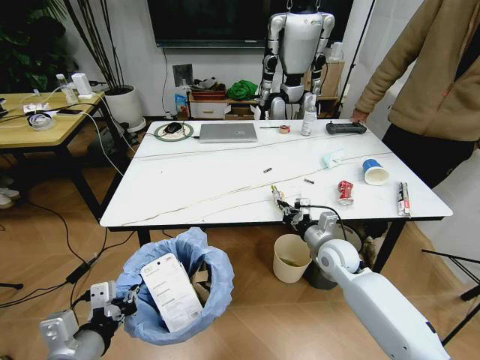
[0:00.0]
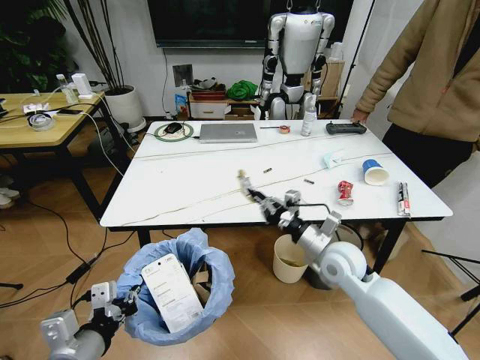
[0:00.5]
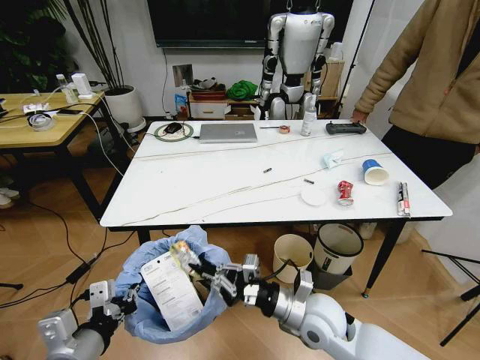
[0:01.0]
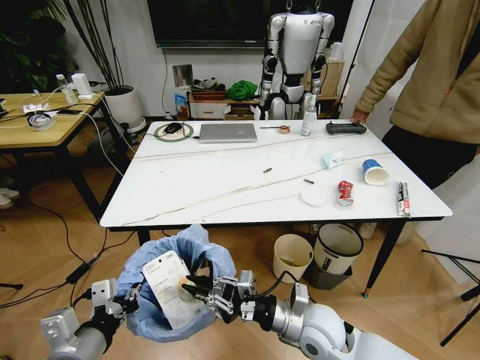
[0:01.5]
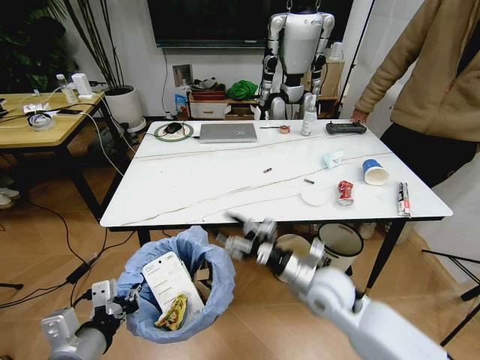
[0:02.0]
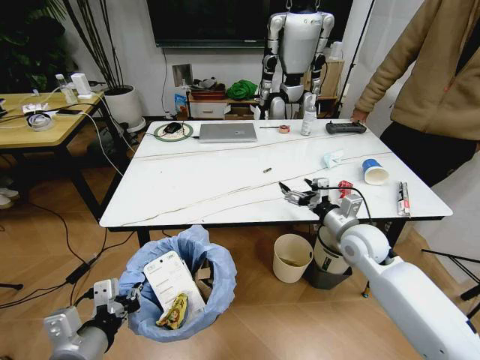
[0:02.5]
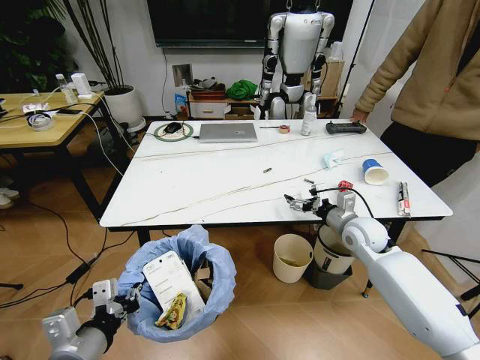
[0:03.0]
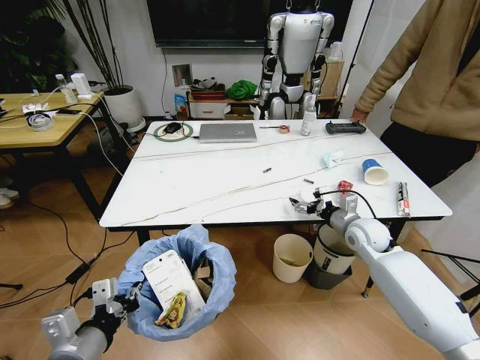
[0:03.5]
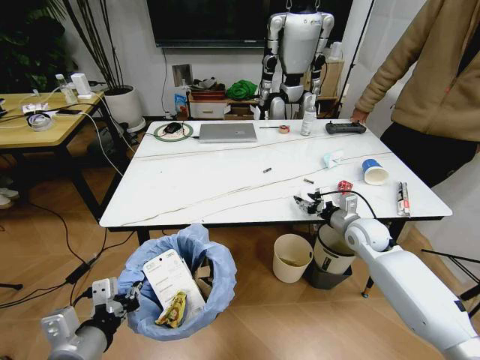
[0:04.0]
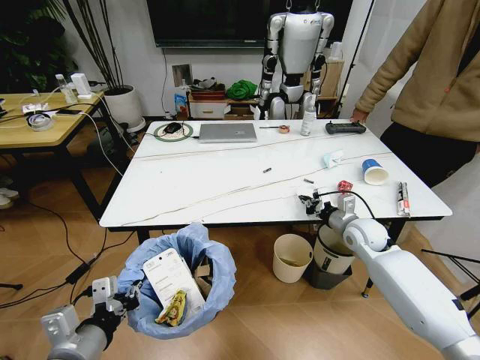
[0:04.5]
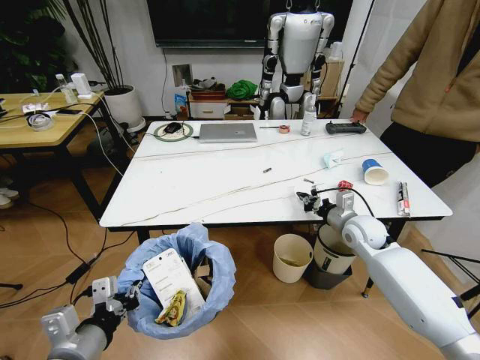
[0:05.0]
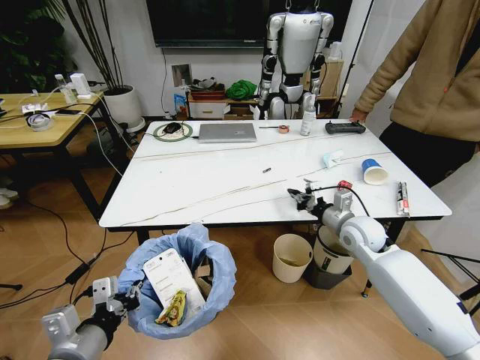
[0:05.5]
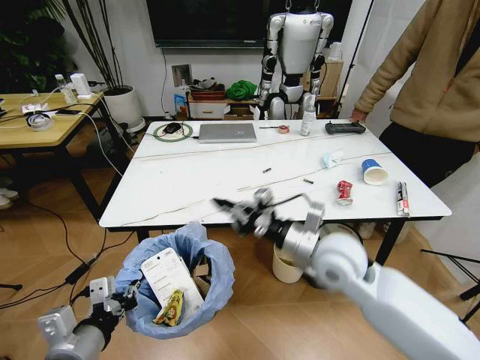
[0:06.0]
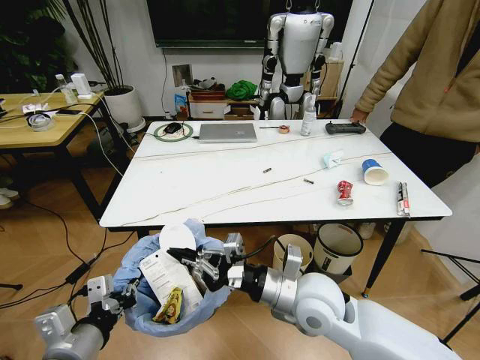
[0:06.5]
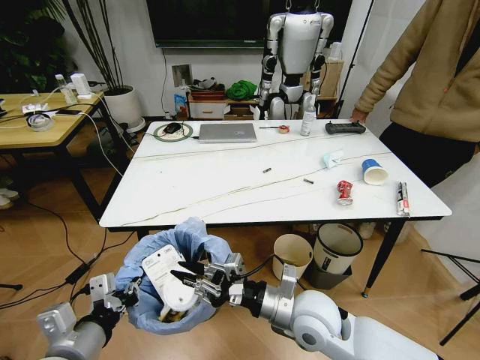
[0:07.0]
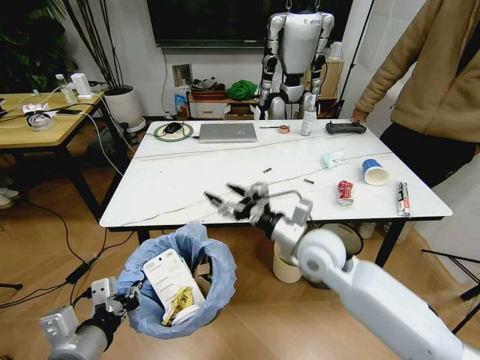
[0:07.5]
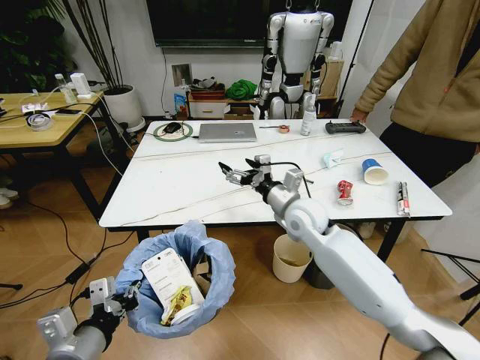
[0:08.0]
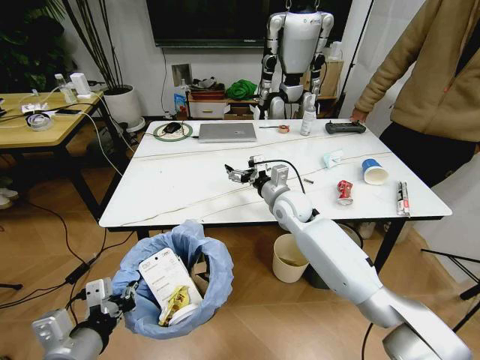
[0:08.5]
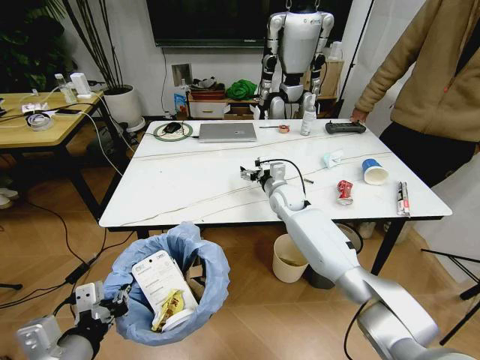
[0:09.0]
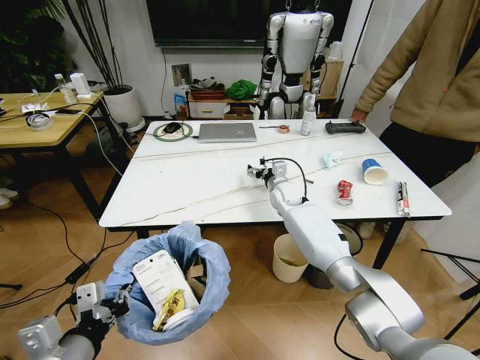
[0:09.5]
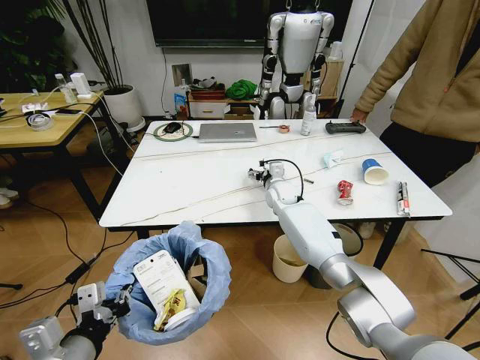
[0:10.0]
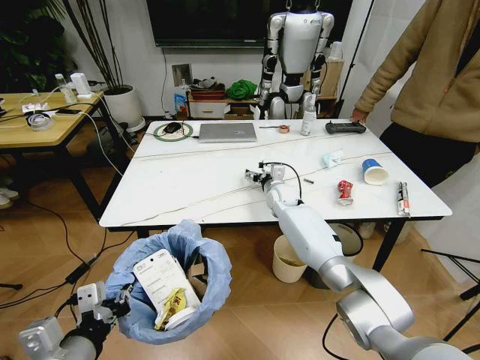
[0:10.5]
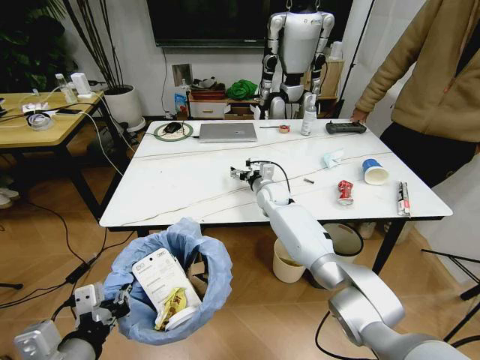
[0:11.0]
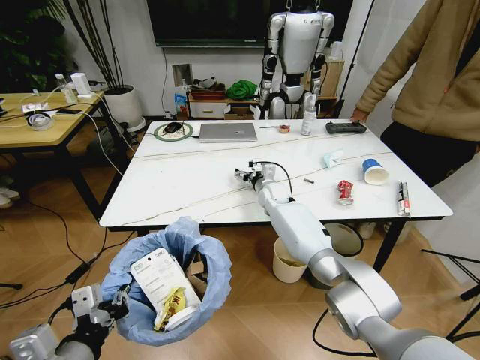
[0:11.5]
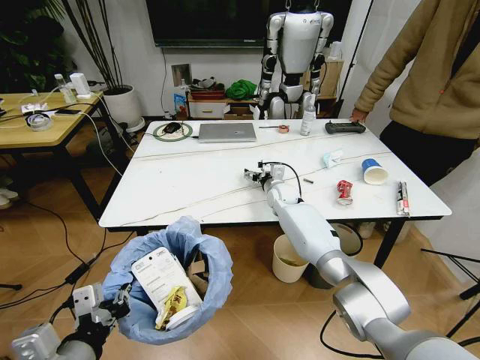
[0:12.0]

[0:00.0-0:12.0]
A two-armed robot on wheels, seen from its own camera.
Task of the whole recording: Pick up the trash bin and place the trash from the table into it.
0.0 to 2.0 s: The right gripper travels backward and to the left by approximately 10 cm, and opens up.
2.0 to 4.0 s: The right gripper shifts roughly 20 cm to the right and forward.
4.0 to 6.0 s: The right gripper shifts approximately 20 cm to the left, backward and upward, and closes up.
6.0 to 8.0 s: The right gripper shifts about 10 cm forward, and opens up.
8.0 to 10.0 s: The right gripper travels forward and downward by about 15 cm.
10.0 to 12.0 s: There are only small adjustments of the grippers.

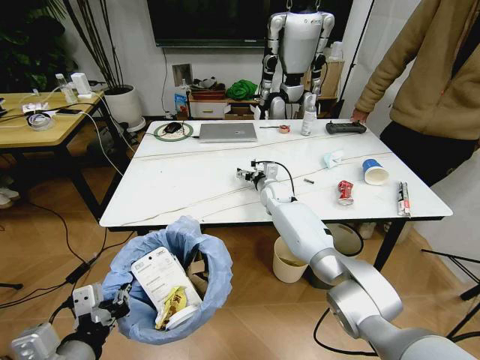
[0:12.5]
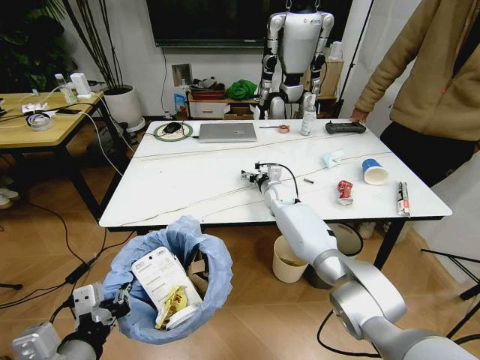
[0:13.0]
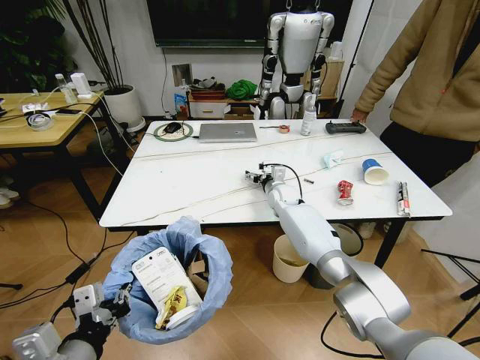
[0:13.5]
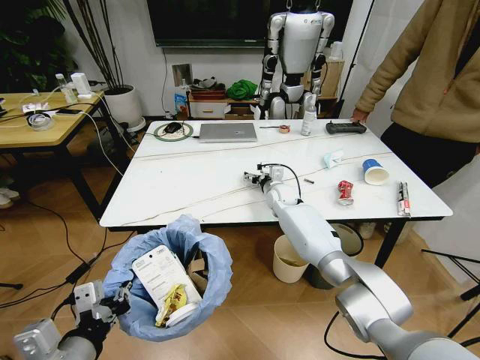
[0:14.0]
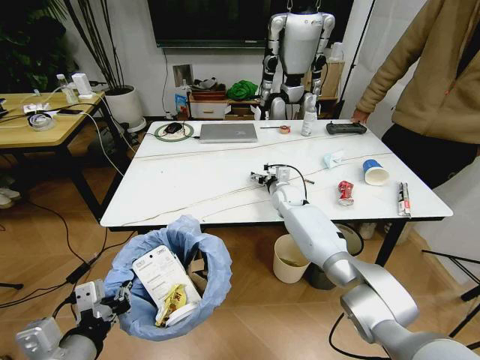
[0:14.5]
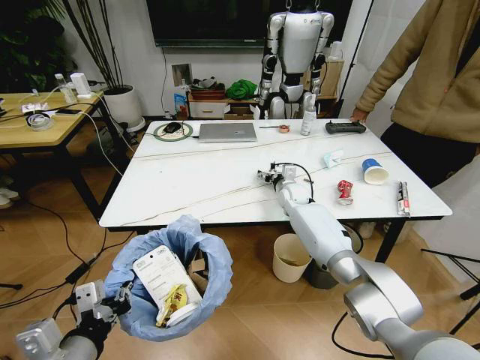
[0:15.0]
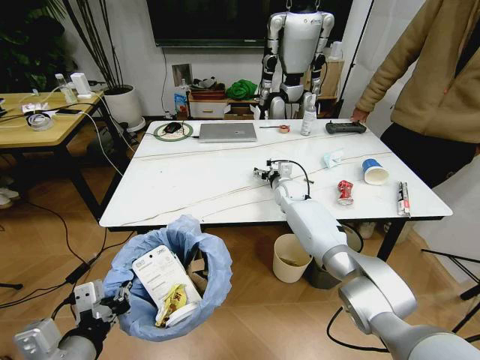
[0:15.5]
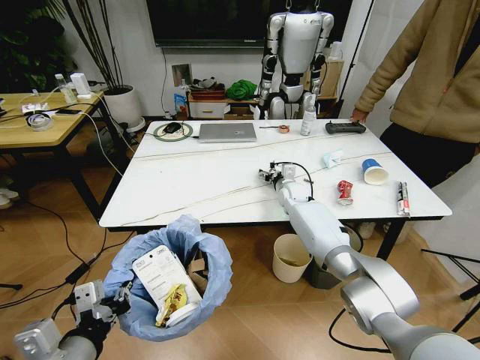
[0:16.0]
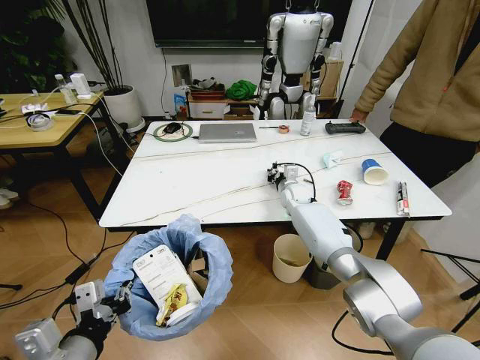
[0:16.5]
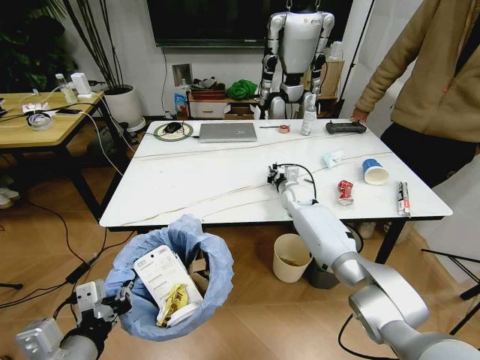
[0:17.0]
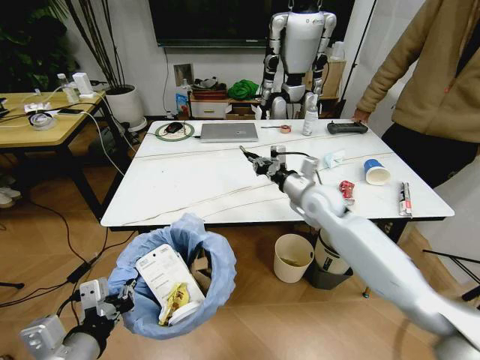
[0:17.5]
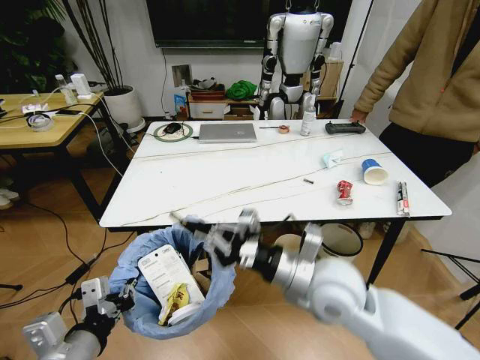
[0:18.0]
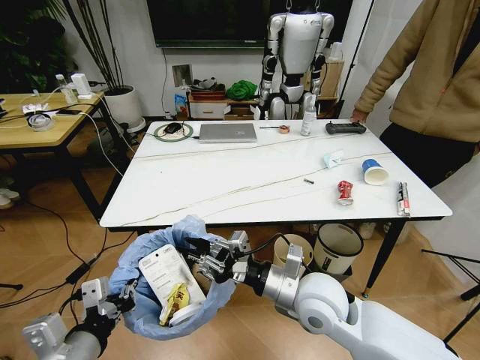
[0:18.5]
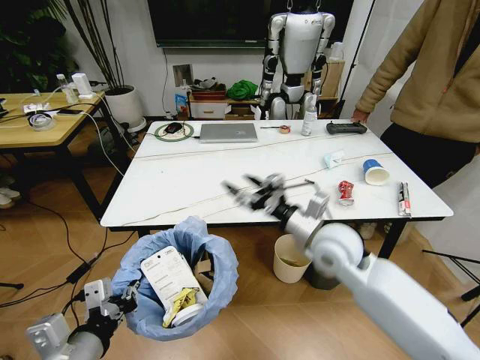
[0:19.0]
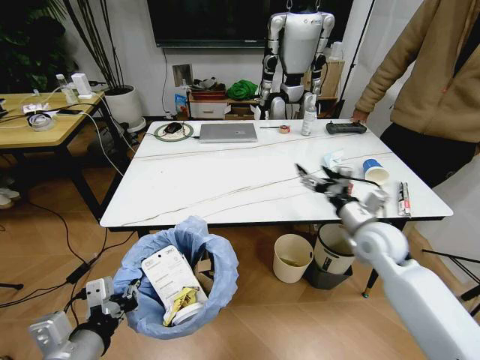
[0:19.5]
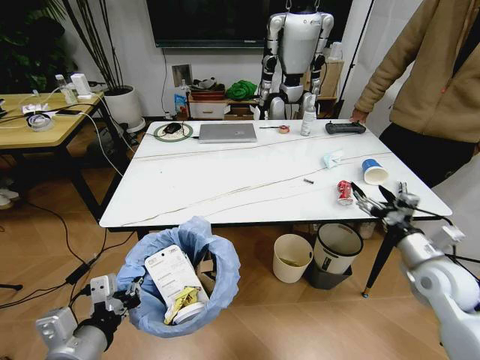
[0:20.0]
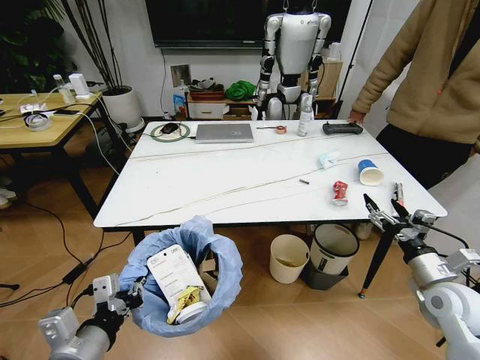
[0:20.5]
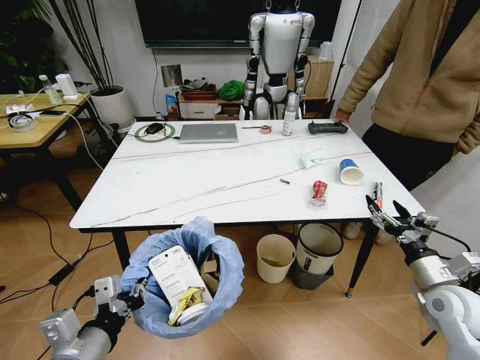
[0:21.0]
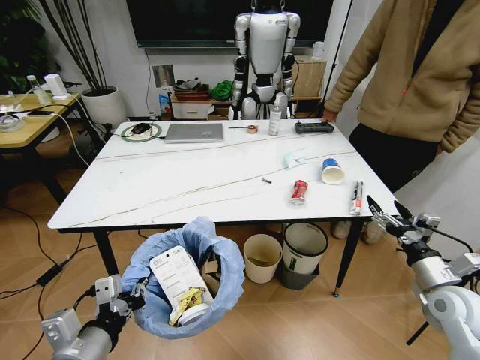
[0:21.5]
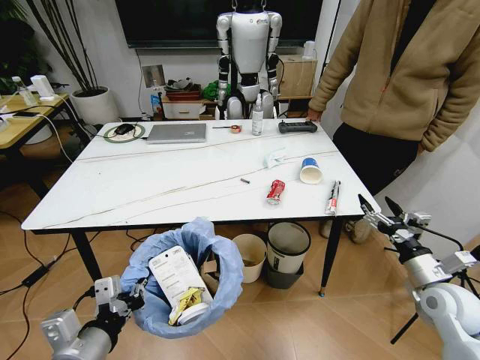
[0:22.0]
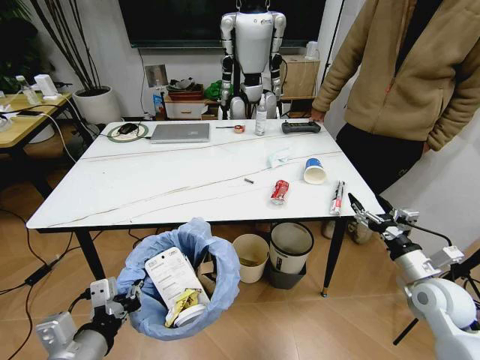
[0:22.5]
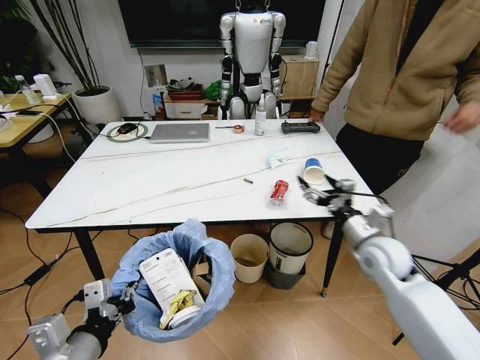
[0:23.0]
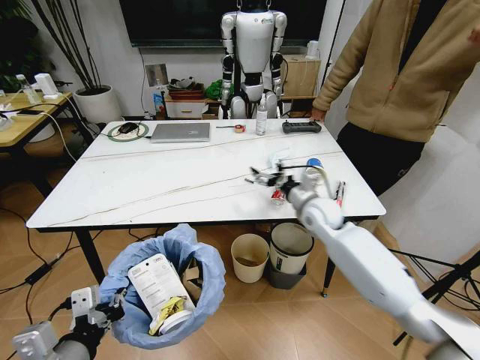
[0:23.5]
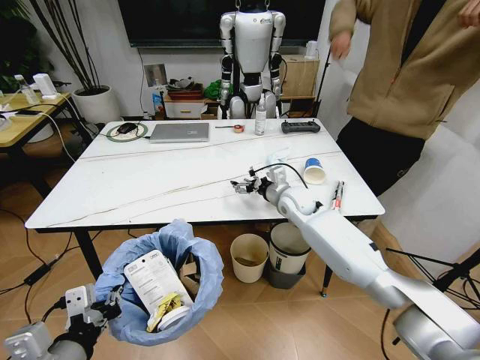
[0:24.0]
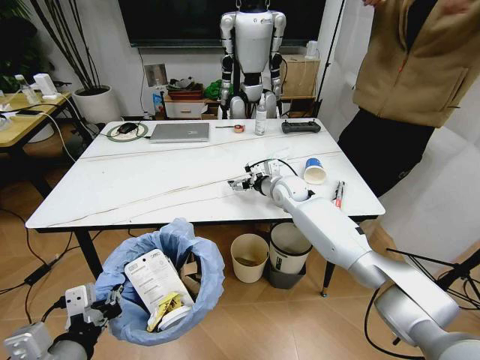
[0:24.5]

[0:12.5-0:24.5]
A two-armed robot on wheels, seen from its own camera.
Task of the whole recording: Pick up the trash bin and place the trash from the table into it.
12.5 to 14.5 s: There are only small adjustments of the grippers.
14.5 to 16.5 s: The right gripper closes up.
16.5 to 18.5 s: The right gripper shifts roughly 35 cm backward.
18.5 to 20.5 s: The right gripper shifts about 30 cm to the right, and opens.
22.5 to 24.5 s: The right gripper heads forward and to the left, covering about 40 cm.

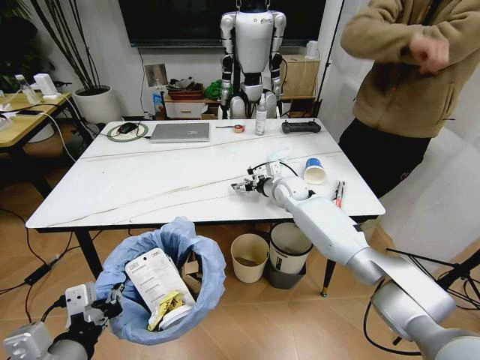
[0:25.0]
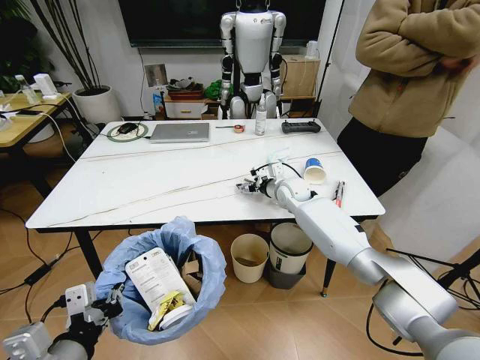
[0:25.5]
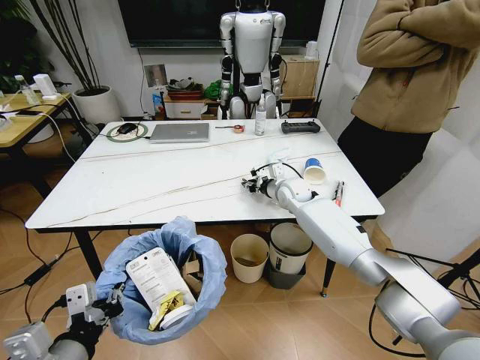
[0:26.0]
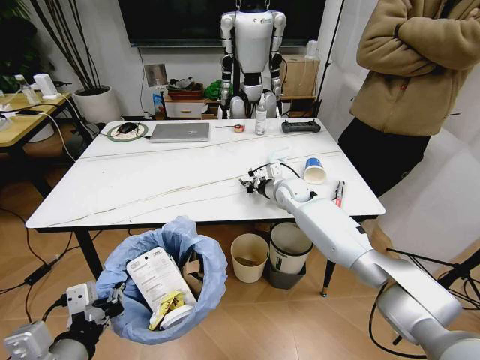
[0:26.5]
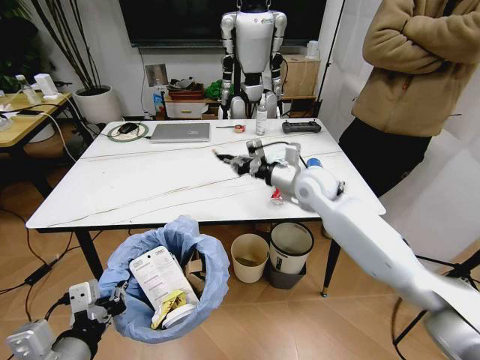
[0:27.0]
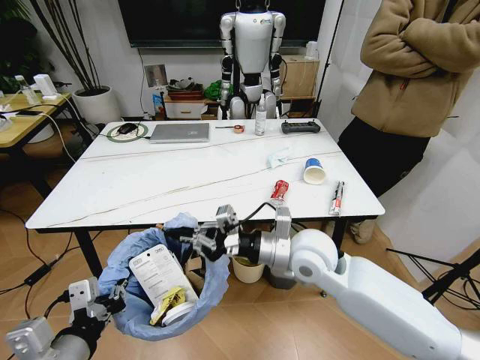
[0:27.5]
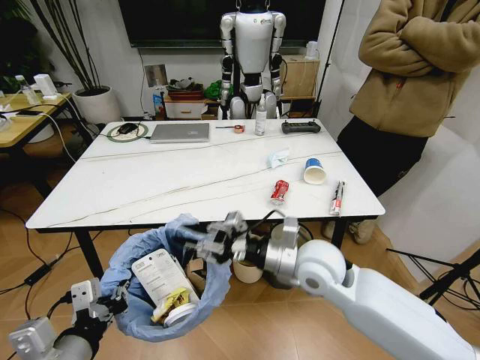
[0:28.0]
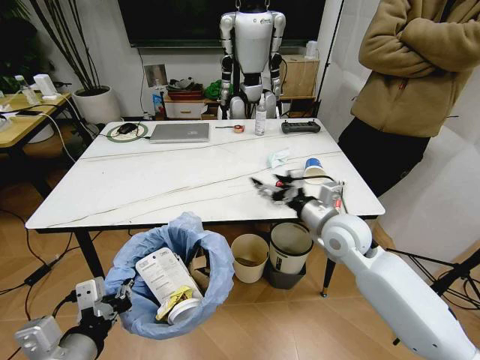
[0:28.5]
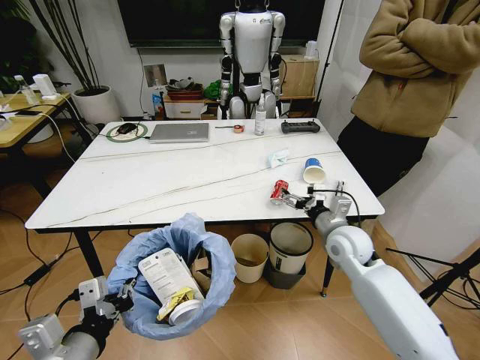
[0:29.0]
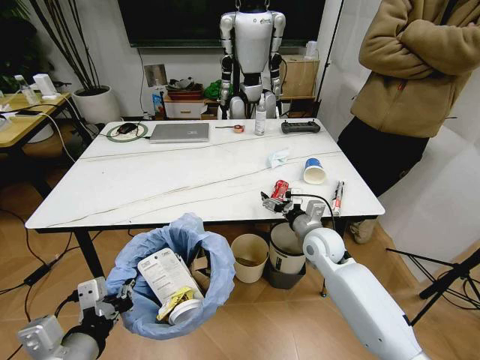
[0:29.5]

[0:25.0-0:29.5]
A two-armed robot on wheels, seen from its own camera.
Task of the whole recording: Pick up the trash bin and place the trash from the table into it.
25.0 to 27.0 s: The right gripper heads upward and backward, covering roughly 15 cm, and closes.
27.0 to 29.5 s: The right gripper moves downward and backward, some 15 cm, and opens up.
